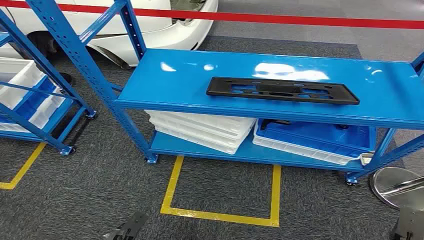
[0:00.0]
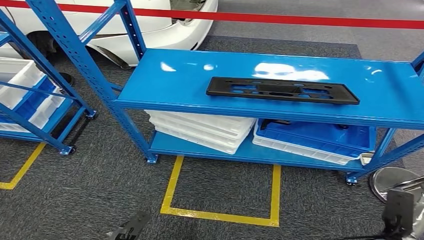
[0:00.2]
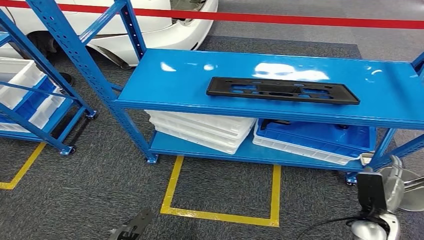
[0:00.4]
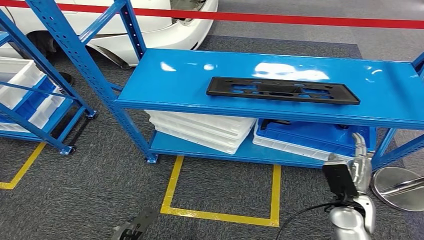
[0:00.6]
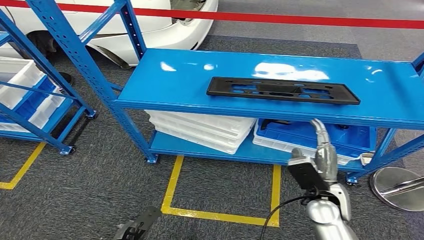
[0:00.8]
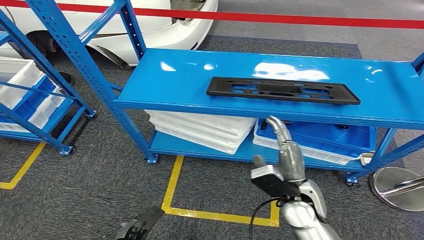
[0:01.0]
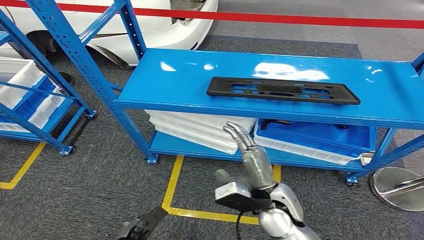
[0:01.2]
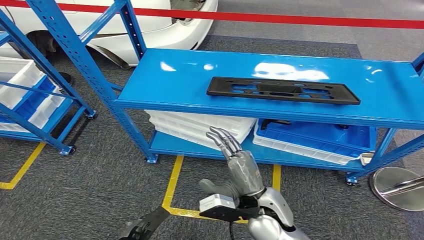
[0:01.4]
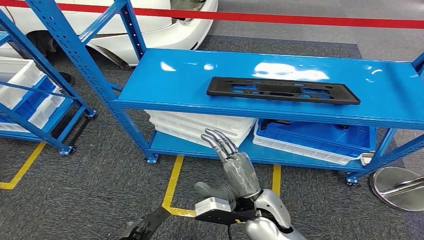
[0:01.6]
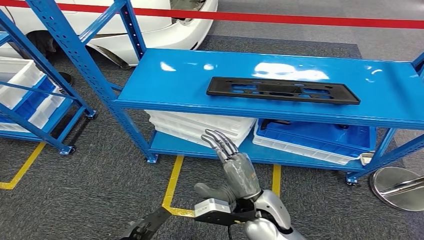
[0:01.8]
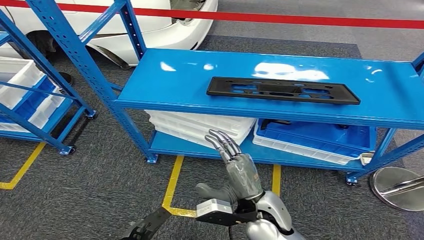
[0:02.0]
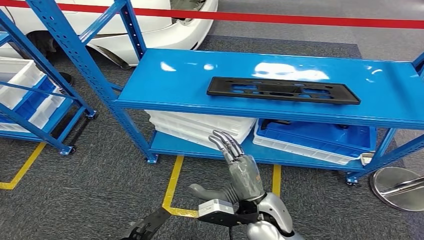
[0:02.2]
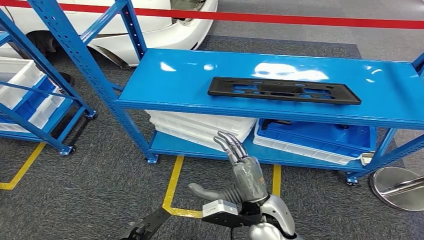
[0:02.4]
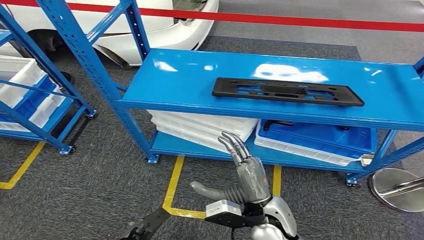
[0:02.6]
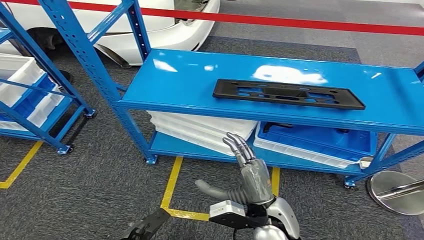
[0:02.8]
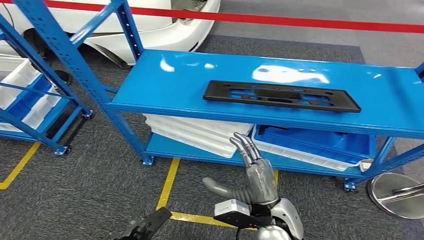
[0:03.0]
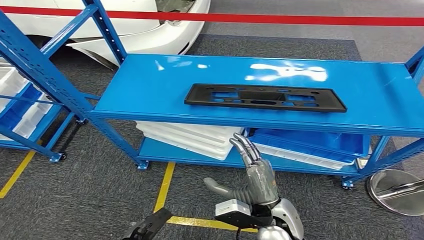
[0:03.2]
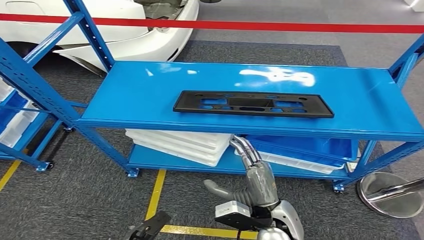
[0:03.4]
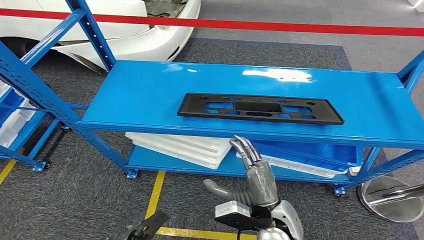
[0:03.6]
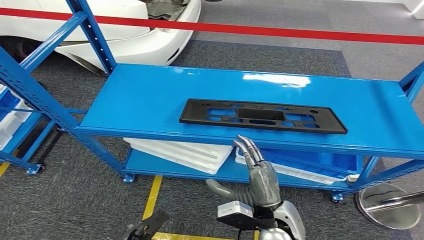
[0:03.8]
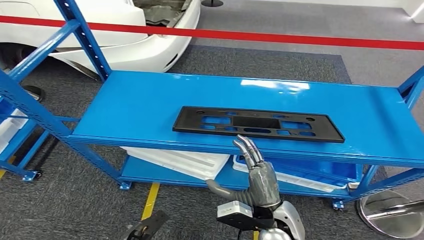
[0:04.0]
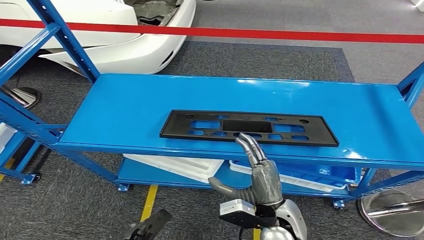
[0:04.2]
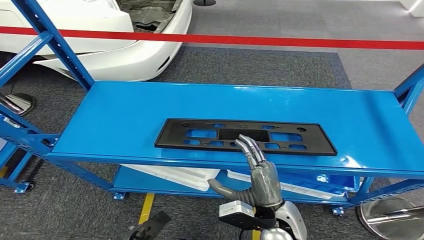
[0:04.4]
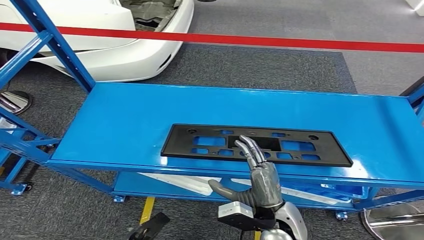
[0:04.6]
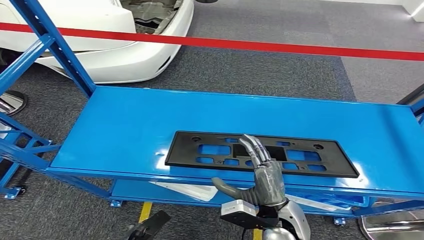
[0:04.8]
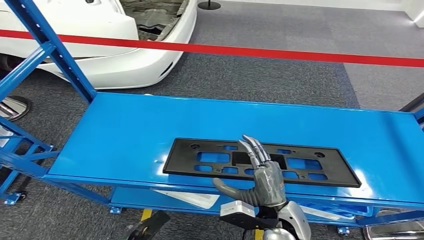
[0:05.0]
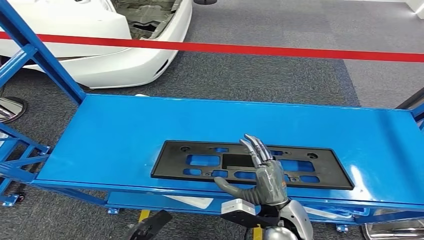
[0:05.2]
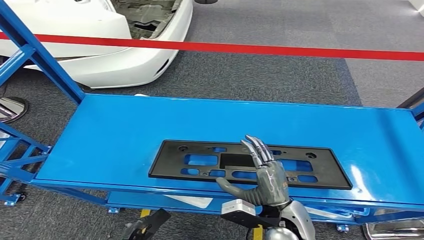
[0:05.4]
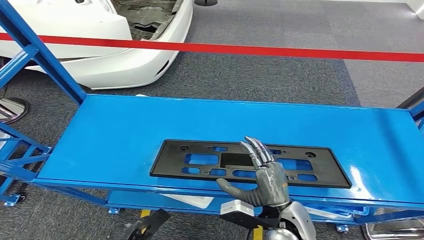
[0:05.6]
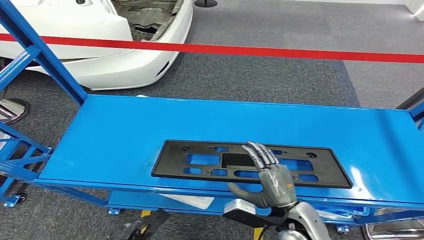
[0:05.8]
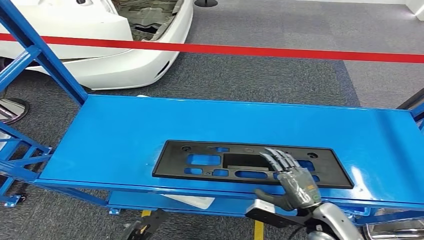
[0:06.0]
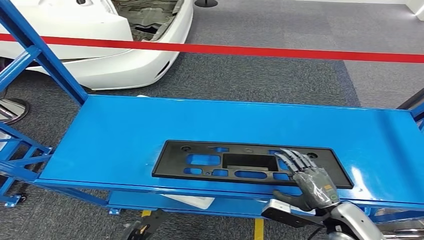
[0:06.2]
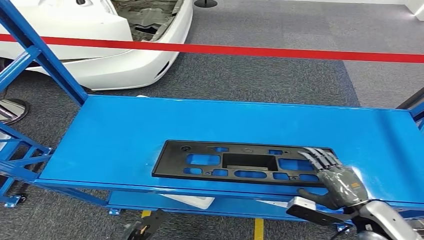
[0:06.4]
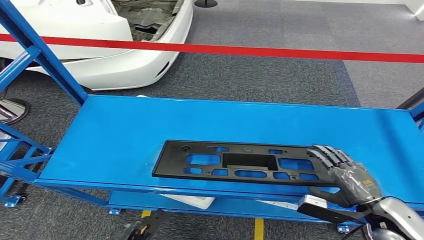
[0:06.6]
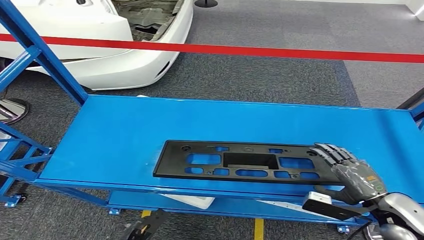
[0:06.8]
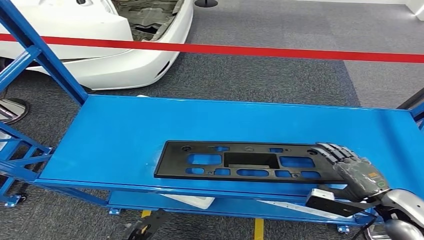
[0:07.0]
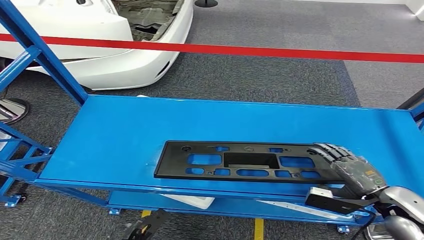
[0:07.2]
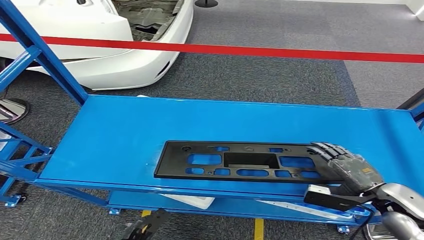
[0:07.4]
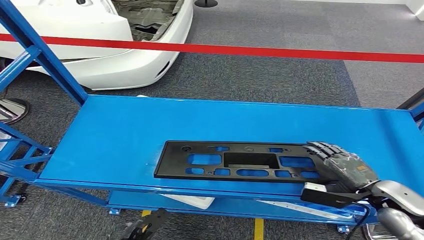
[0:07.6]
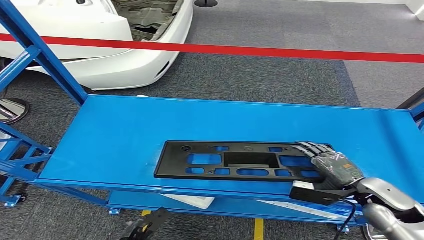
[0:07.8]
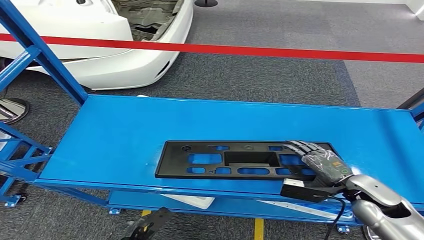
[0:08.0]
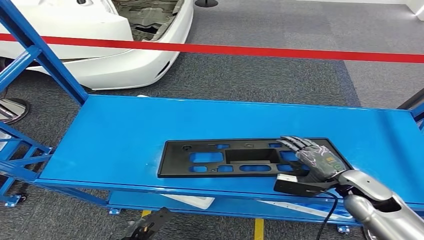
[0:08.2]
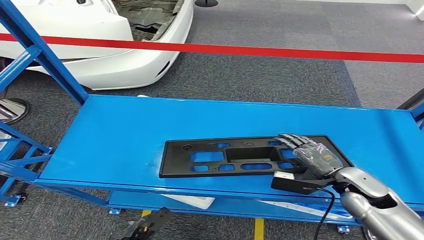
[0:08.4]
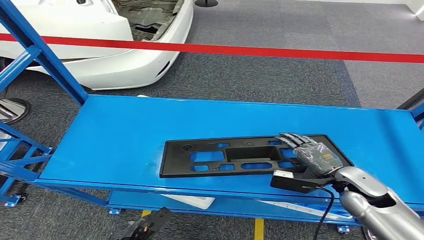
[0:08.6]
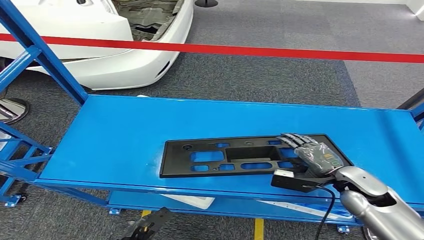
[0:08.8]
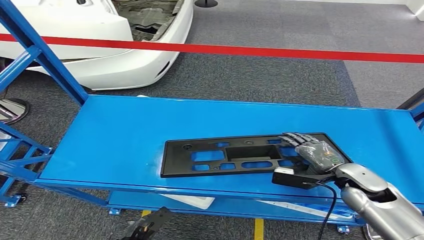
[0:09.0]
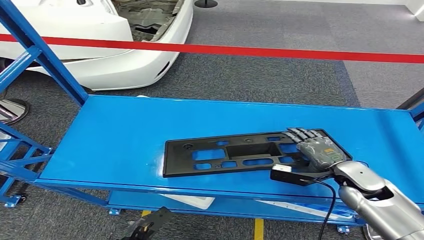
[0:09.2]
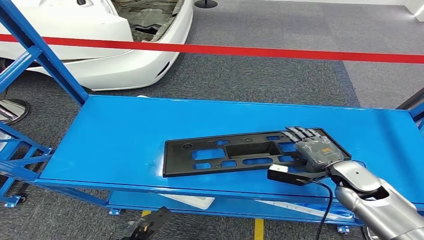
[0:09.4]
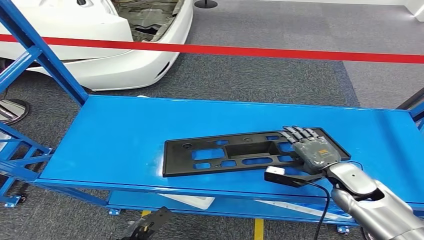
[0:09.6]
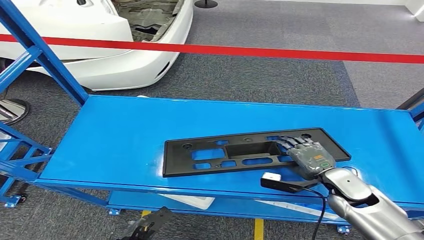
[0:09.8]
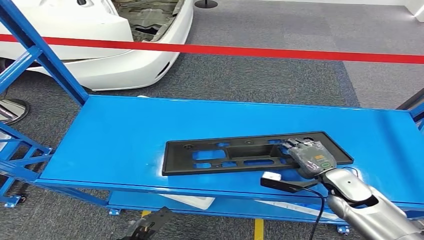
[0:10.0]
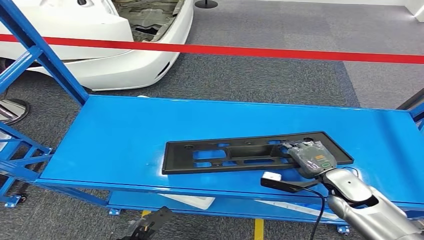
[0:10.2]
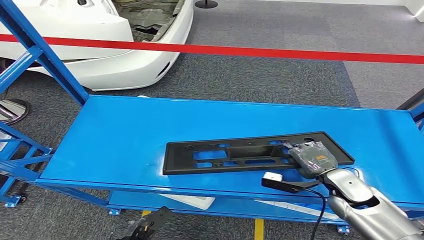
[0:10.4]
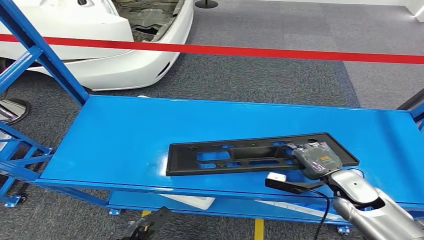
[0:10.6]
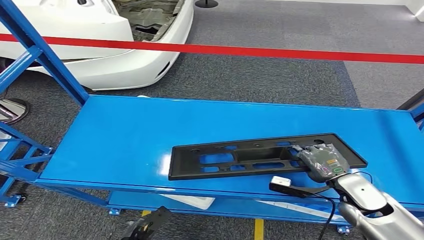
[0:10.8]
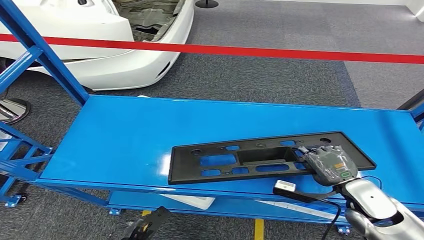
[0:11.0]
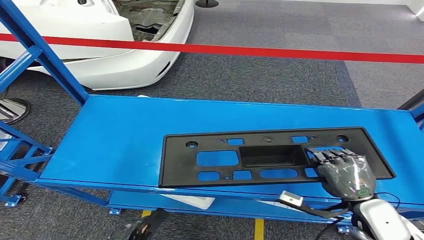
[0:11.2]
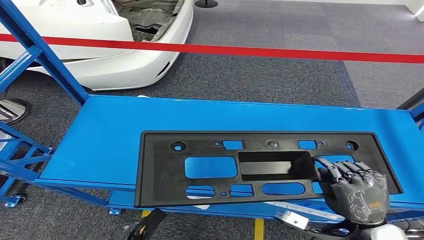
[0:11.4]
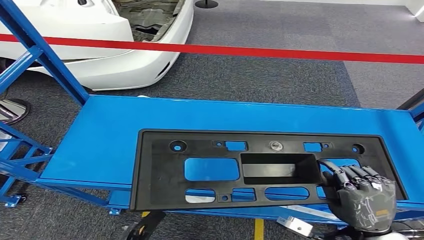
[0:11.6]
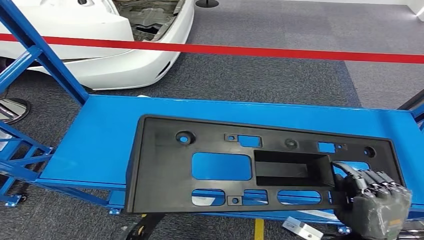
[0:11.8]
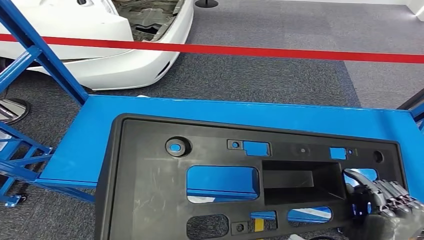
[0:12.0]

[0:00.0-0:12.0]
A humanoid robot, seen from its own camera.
0:06.0 to 0:07.6: The right hand heads to the right, forward and upward, covering approximately 15 cm.
0:07.6 to 0:09.0: The right hand travels to the left by approximately 5 cm.
0:09.0 to 0:10.4: The hands make only small movements.

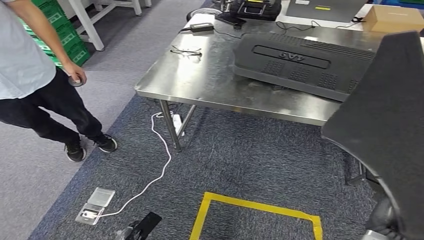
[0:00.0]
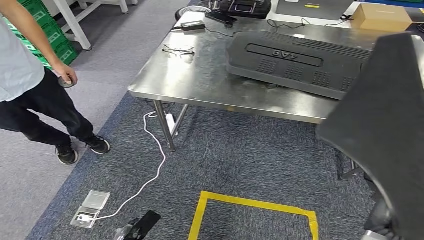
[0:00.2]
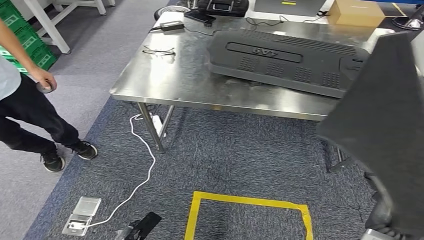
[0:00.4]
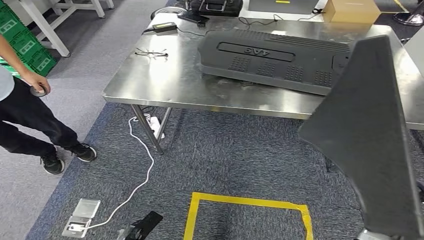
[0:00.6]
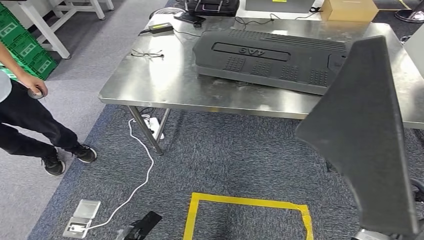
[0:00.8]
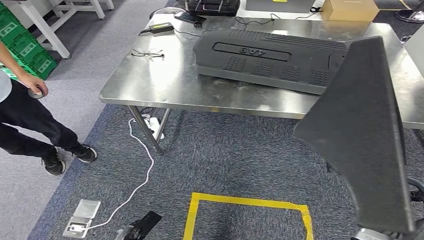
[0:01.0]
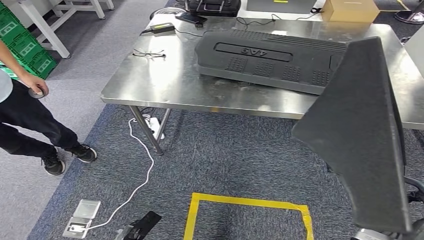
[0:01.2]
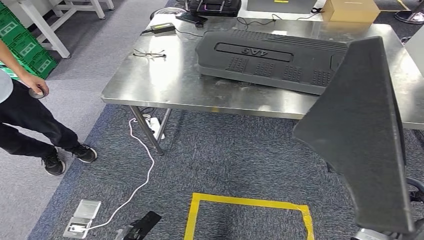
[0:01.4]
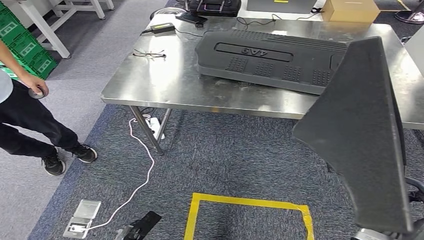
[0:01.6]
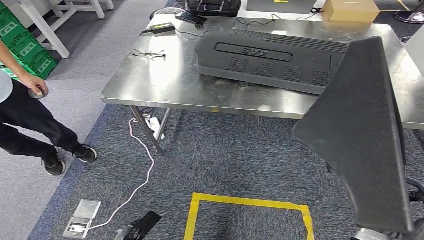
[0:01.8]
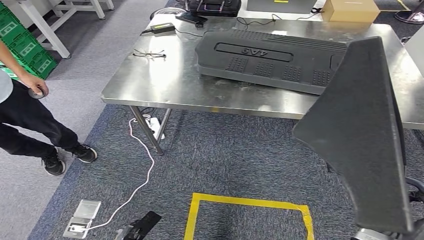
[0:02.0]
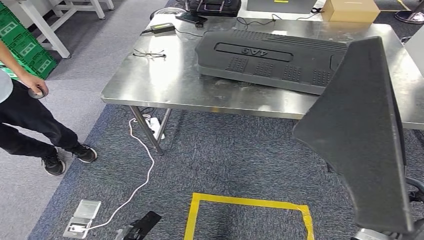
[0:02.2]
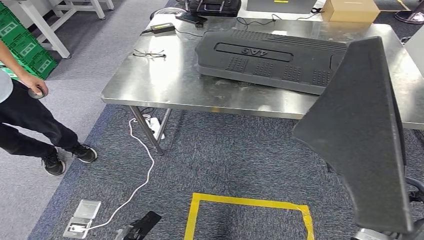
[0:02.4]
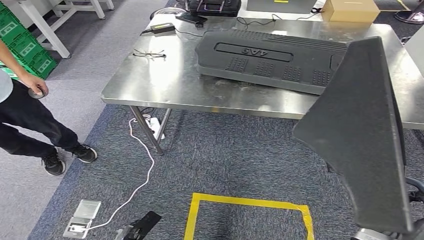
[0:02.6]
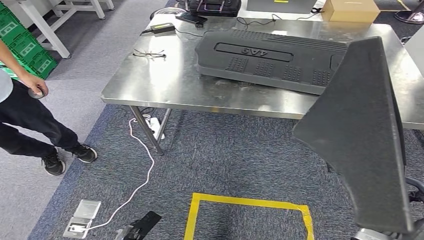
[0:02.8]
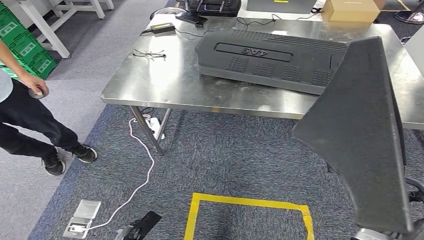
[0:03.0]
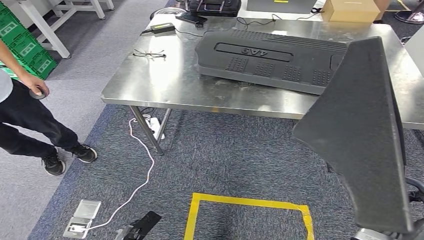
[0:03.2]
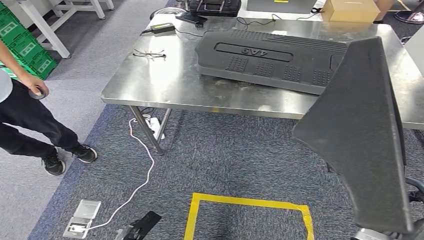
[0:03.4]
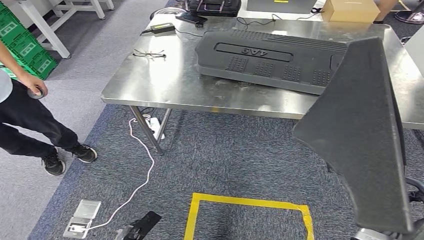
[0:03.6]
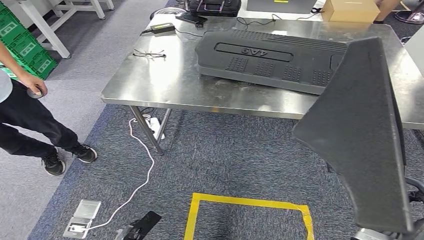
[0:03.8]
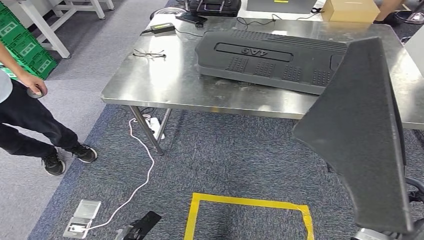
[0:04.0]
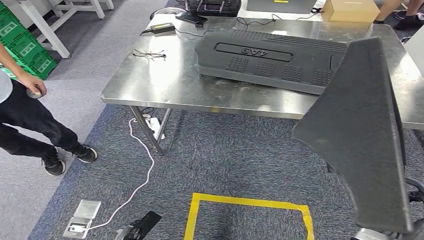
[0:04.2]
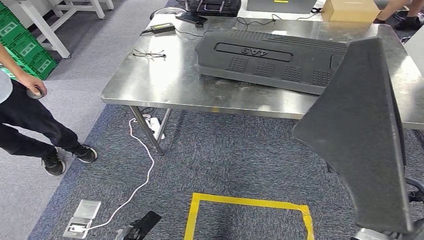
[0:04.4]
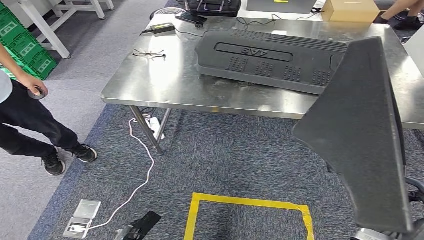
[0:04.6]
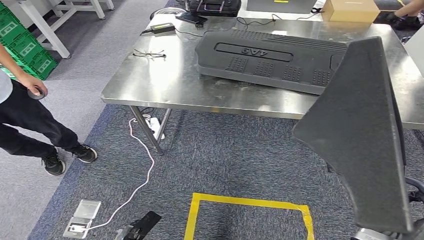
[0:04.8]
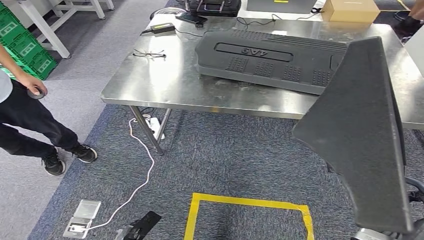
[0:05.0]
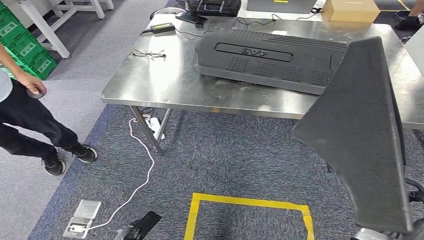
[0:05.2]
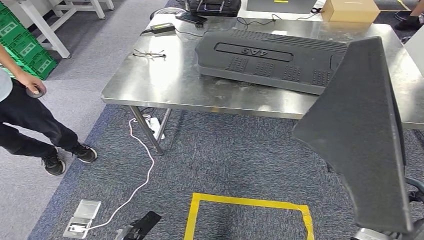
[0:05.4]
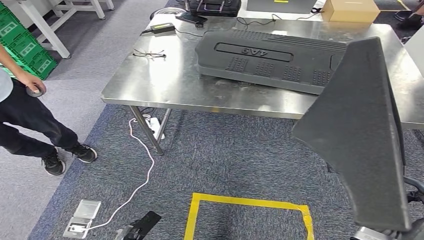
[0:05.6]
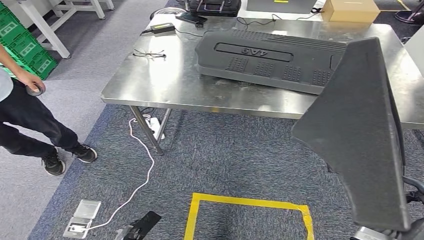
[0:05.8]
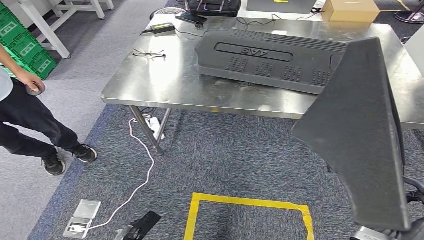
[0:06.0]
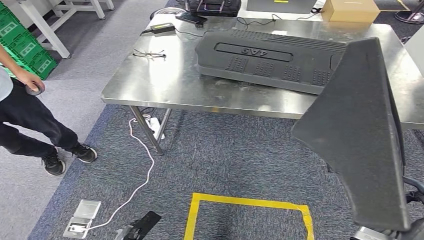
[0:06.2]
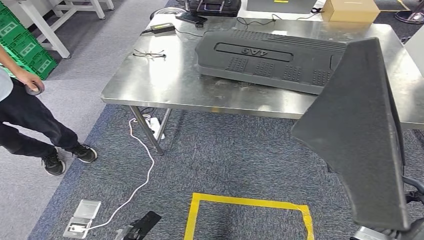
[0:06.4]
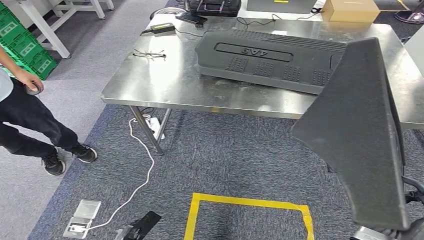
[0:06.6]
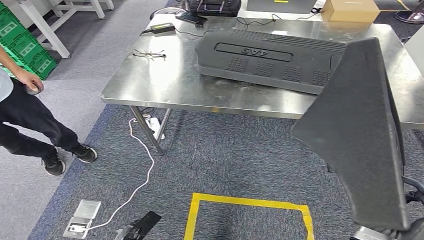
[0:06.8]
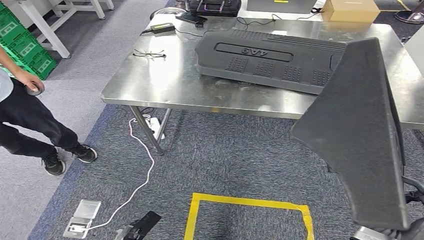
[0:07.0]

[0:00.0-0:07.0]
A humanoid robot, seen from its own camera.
0:01.4 to 0:07.0: Neither hand changes place.
